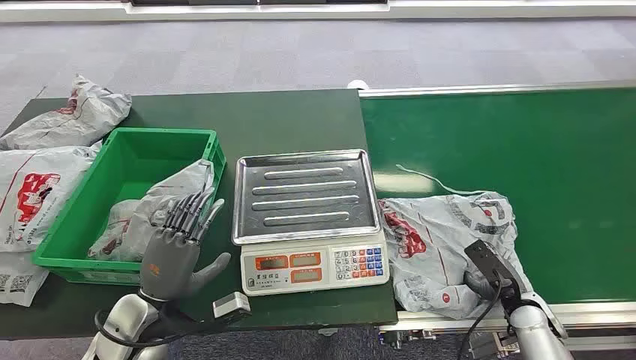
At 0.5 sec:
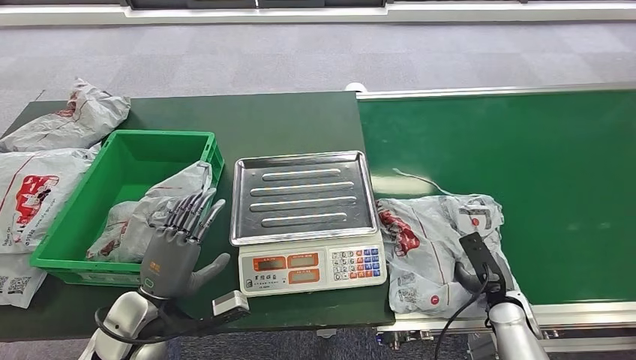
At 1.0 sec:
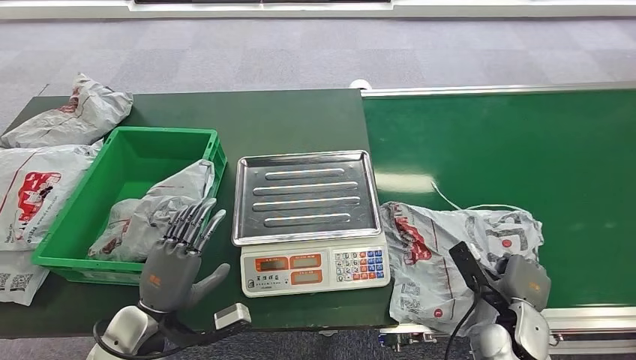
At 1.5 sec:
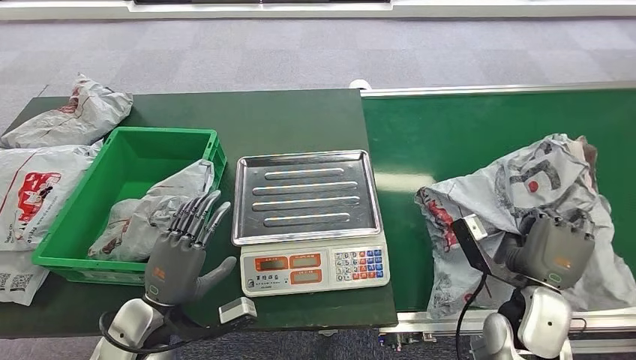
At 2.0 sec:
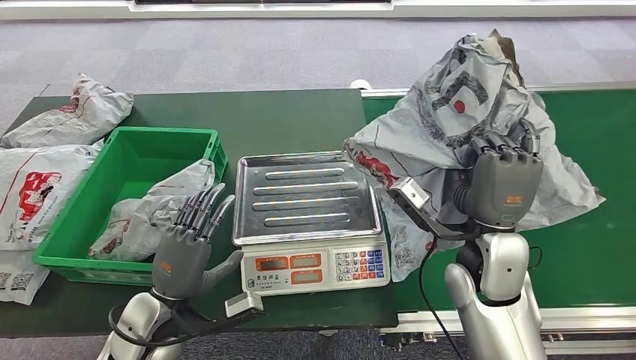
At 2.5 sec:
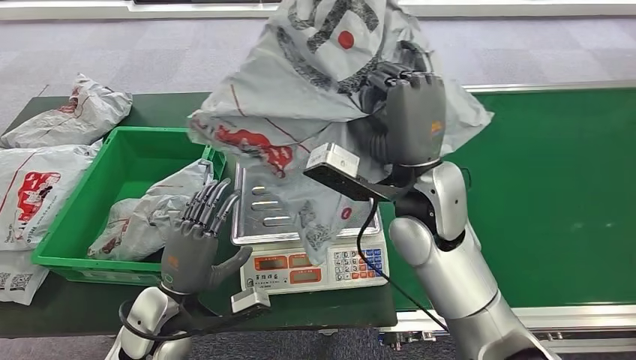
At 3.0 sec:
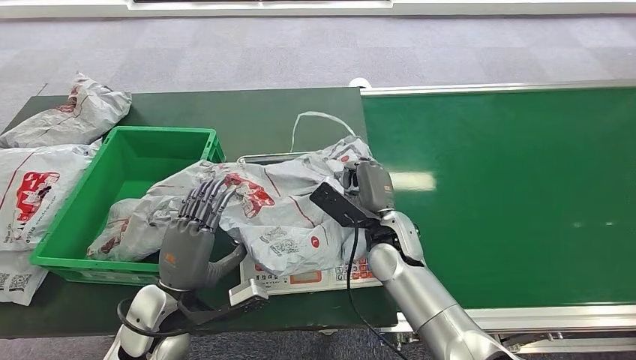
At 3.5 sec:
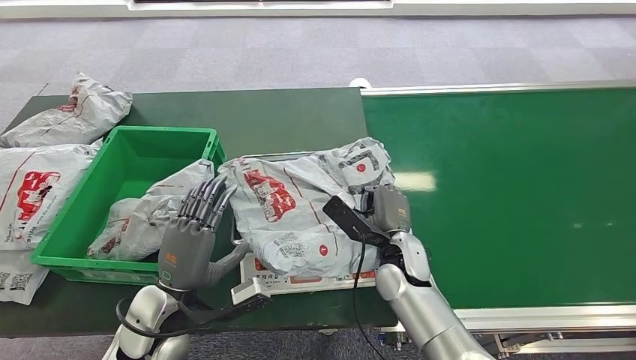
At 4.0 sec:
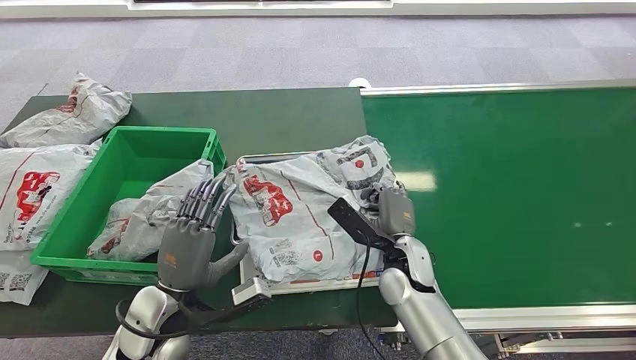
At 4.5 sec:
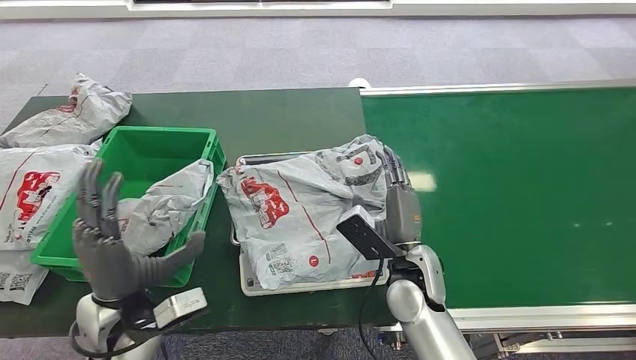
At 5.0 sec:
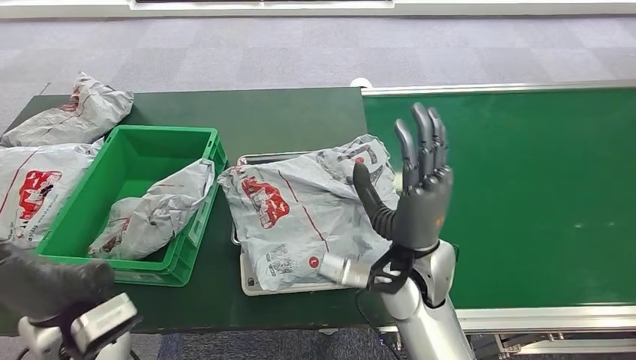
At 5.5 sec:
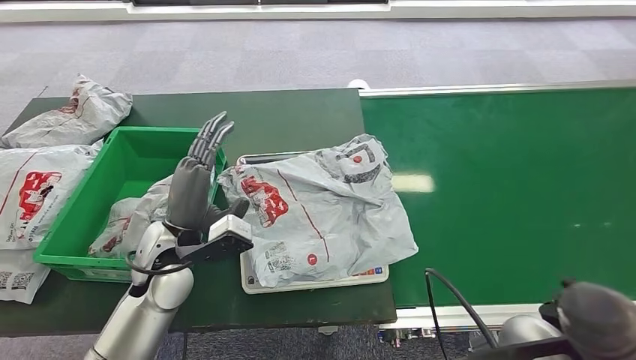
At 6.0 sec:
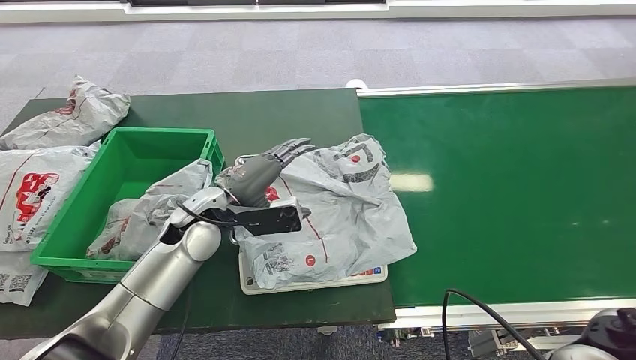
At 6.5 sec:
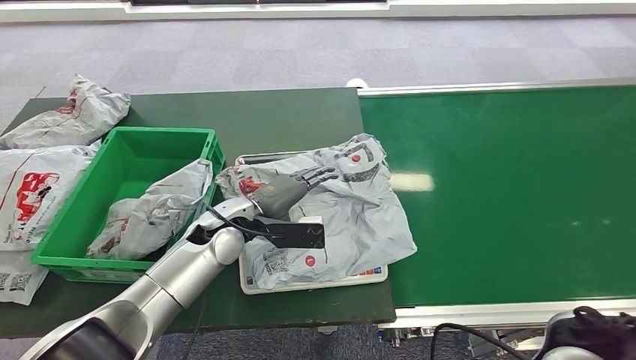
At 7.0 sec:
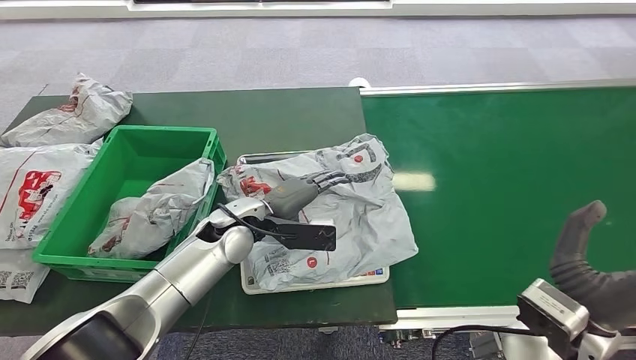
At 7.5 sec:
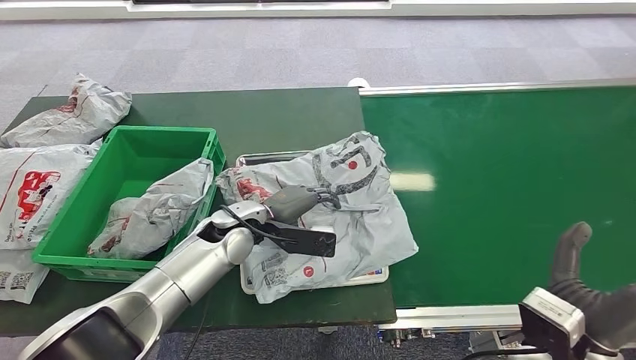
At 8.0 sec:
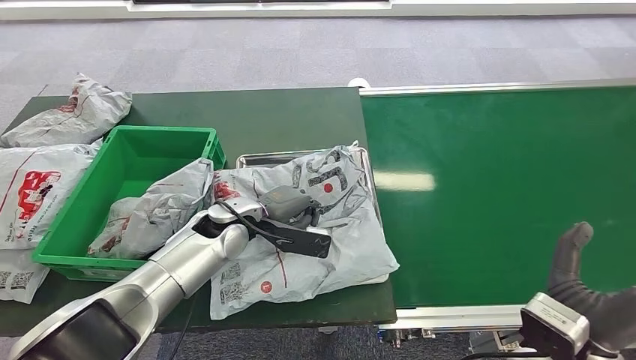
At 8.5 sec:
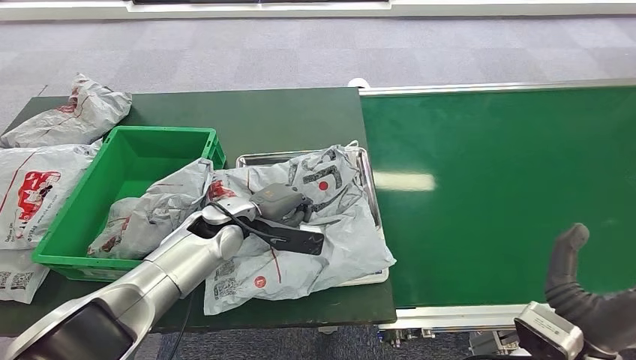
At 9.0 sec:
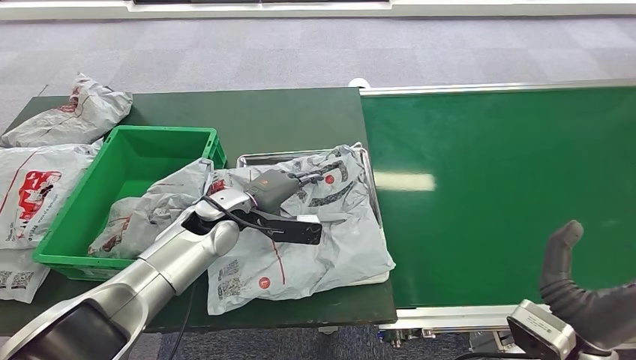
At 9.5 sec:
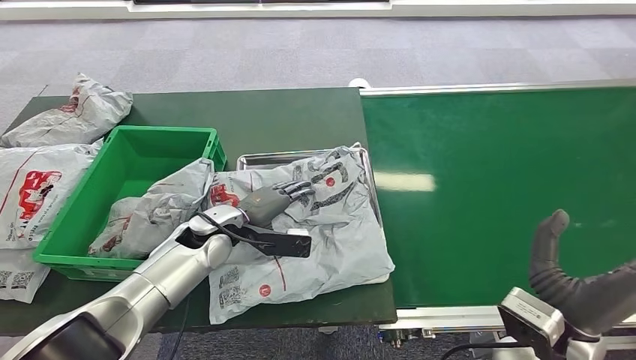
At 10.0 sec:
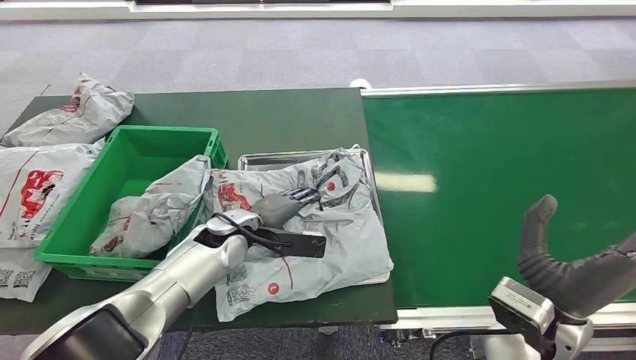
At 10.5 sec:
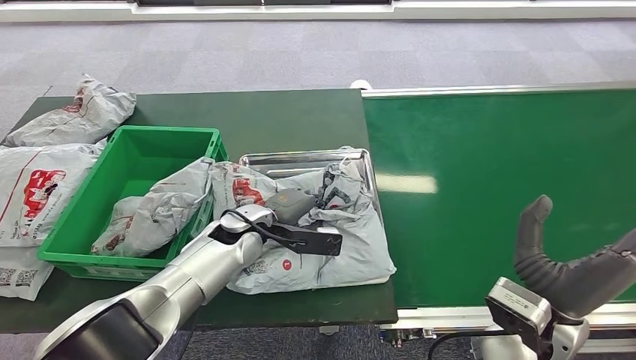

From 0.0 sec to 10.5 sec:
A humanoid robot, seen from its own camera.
Step, from 0.0 sec to 2.0 sec: Pick up the package from the conveyor belt.
Step, from 2.5 sec to 4.5 sec: Place the package onto the inbound machine.
From 6.5 sec to 8.5 sec: The right hand goes about 15 cm downward.

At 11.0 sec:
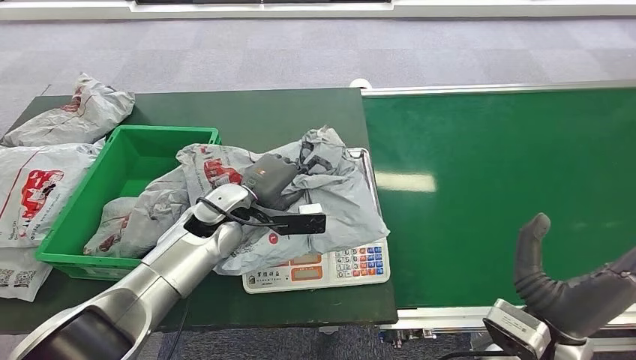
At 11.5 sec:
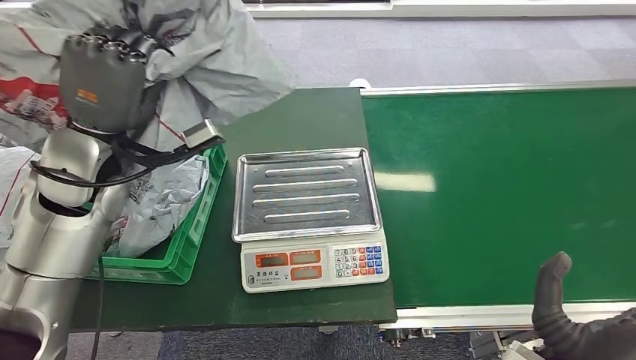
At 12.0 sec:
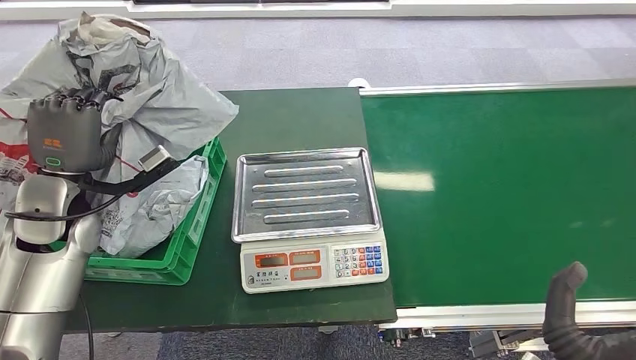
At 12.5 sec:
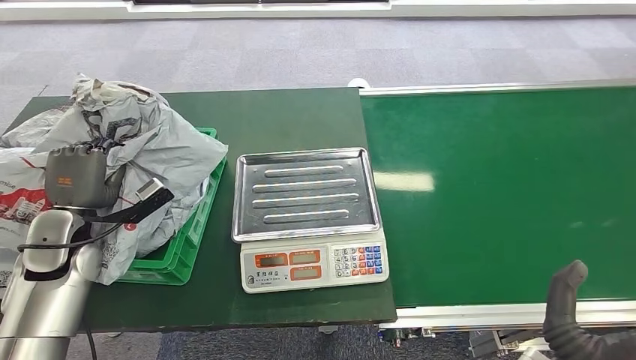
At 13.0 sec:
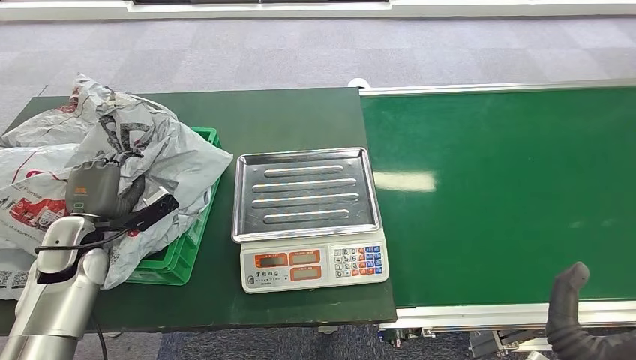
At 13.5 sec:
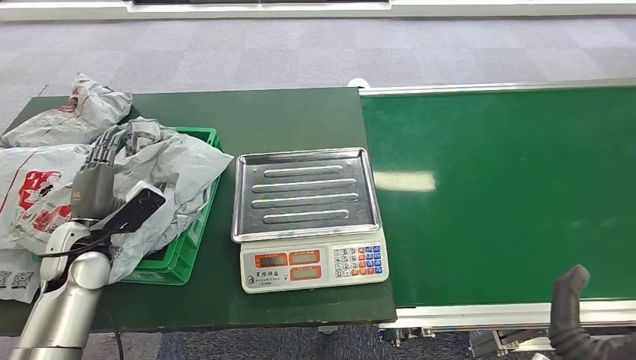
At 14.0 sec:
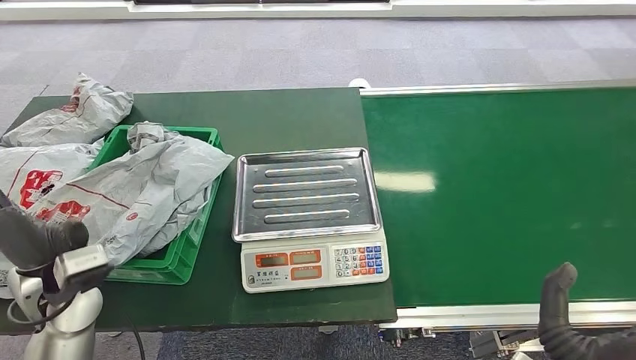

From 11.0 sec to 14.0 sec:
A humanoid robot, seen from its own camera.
Step, from 12.0 sec to 14.0 sec: Place the package into the parcel locker.
From 12.5 sec to 14.0 sec: The left hand goes approximately 10 cm backward and to the right.

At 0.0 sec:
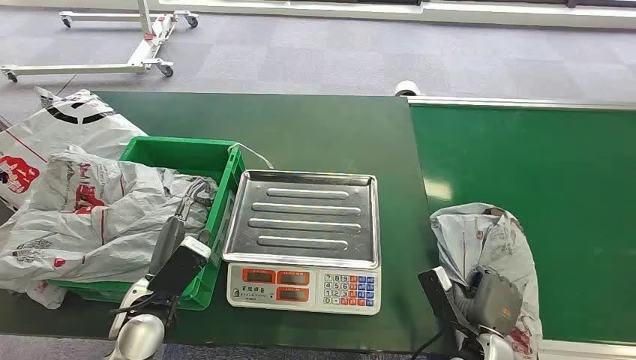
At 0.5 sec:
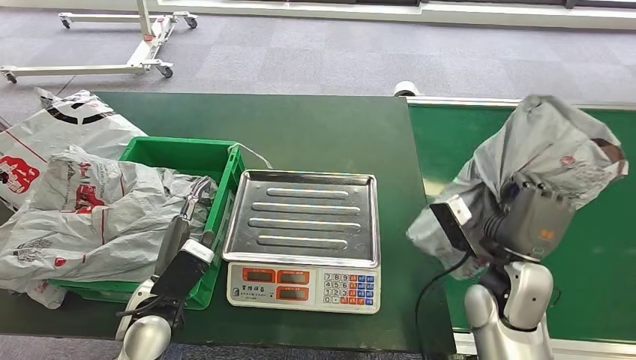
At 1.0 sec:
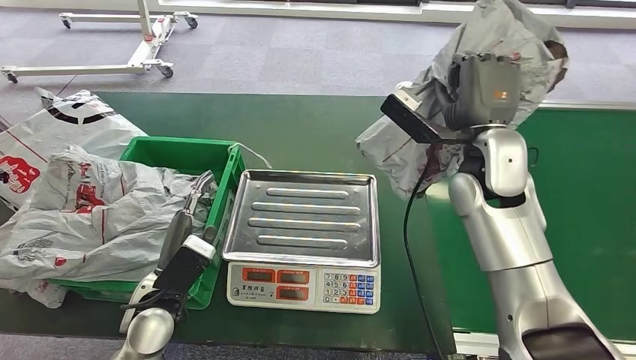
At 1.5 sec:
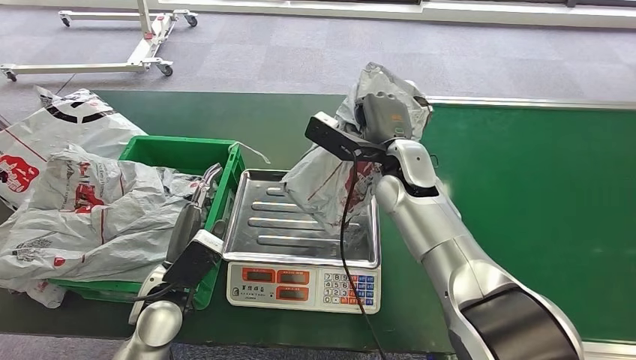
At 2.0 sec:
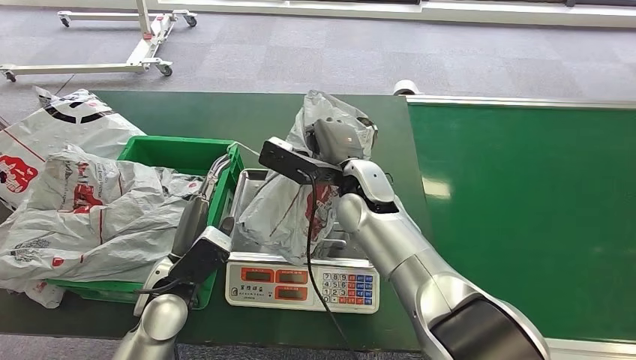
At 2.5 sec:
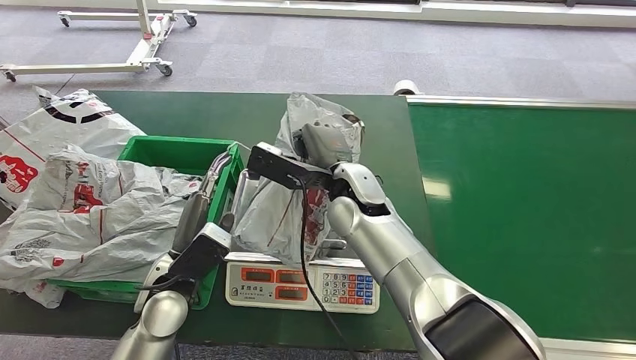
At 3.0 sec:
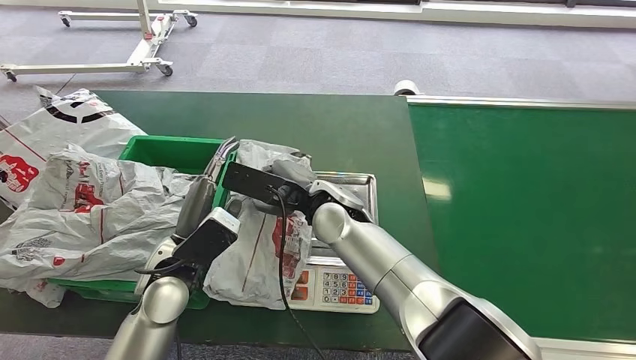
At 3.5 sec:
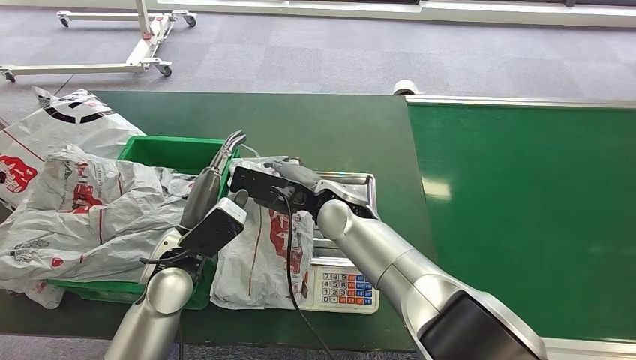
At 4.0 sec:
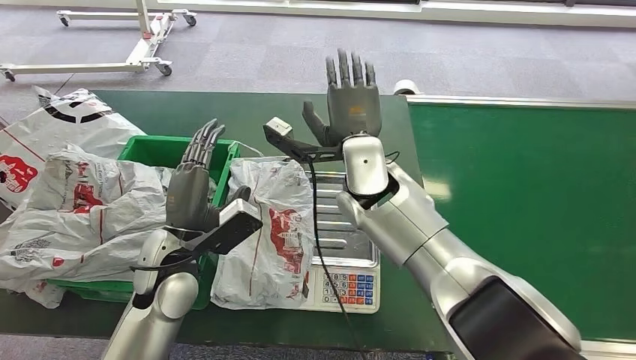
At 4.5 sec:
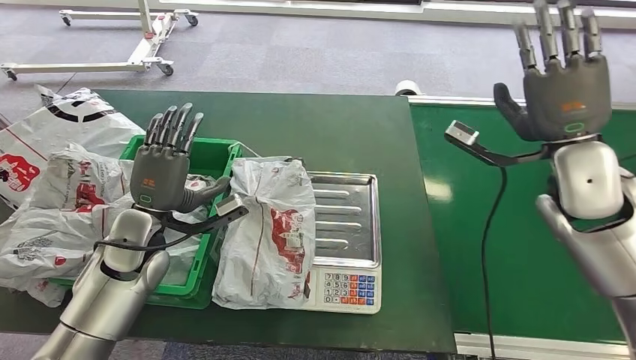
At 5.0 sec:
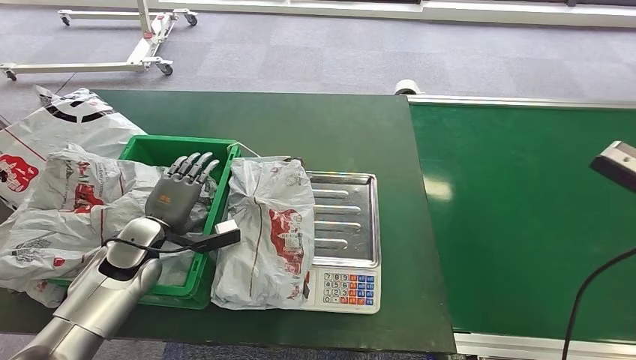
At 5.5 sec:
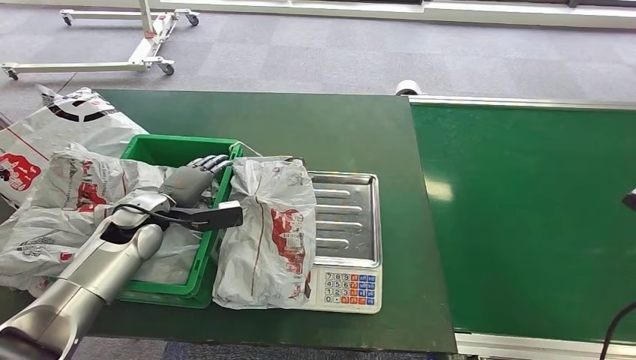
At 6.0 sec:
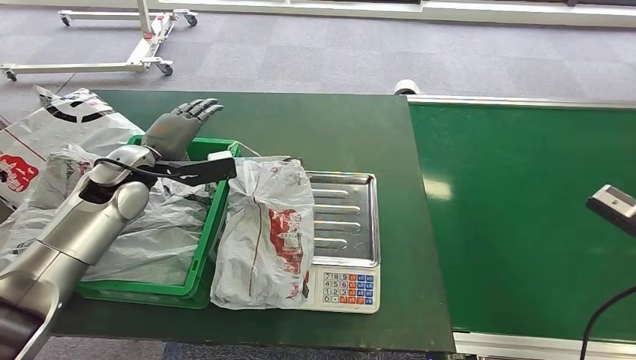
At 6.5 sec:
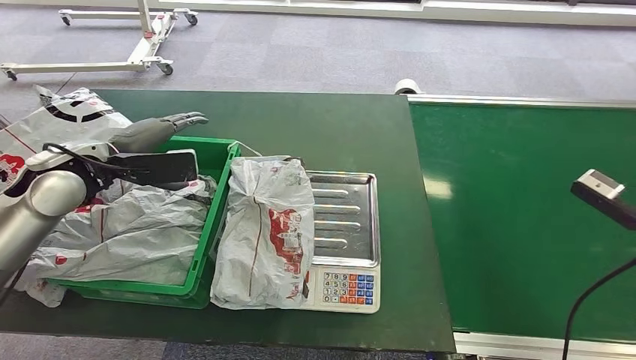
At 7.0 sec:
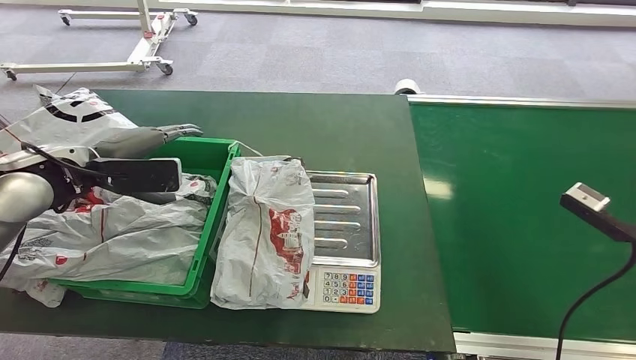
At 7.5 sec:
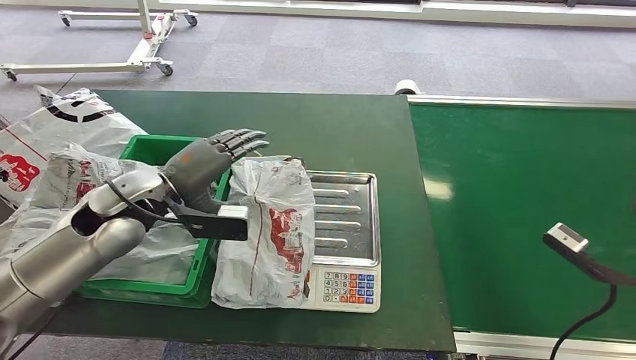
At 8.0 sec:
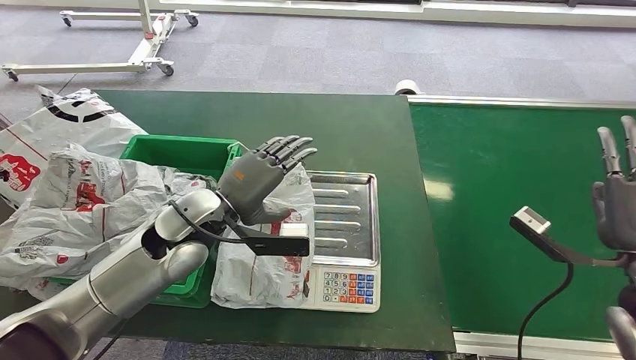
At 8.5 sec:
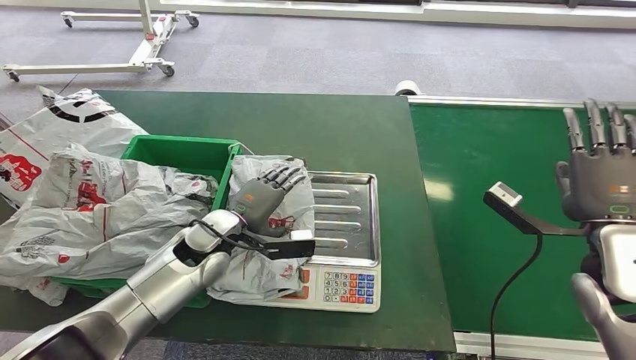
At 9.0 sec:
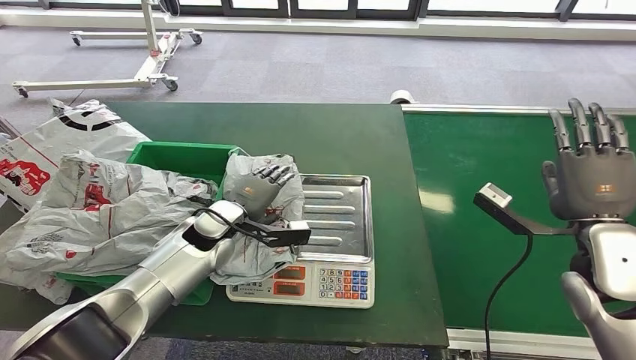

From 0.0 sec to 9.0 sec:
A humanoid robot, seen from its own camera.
Step, from 0.0 sec to 1.0 sec: Pick up the package from the conveyor belt.
Step, from 1.5 sec to 5.0 sec: Place the package onto the inbound machine.
